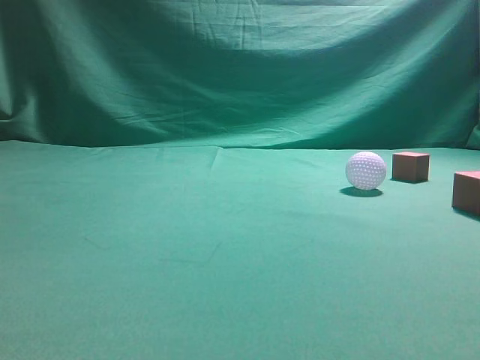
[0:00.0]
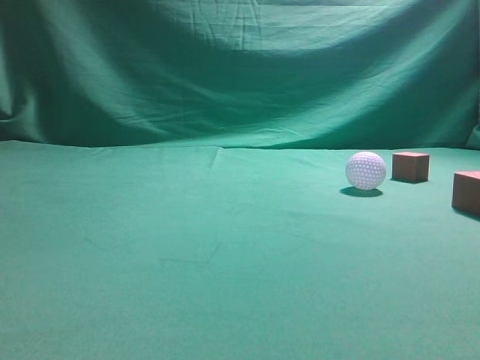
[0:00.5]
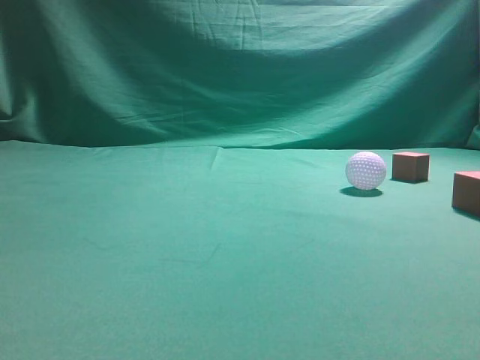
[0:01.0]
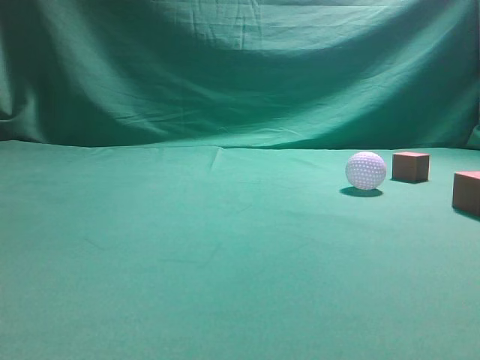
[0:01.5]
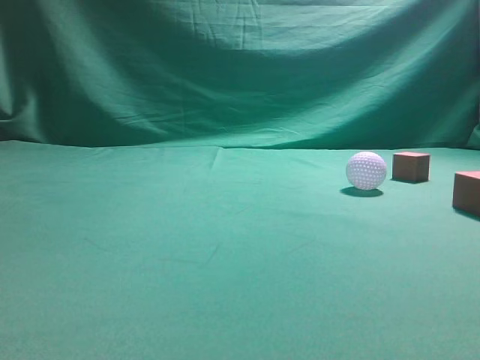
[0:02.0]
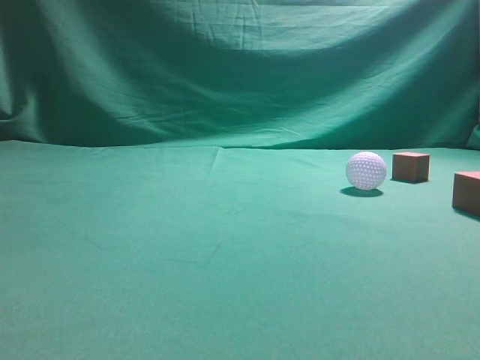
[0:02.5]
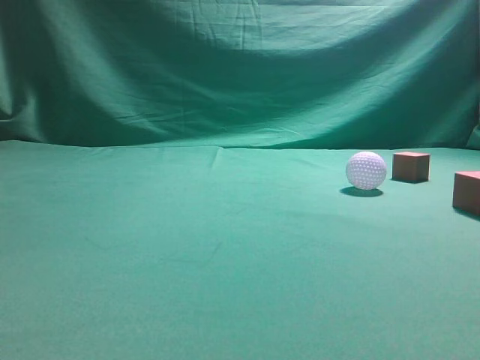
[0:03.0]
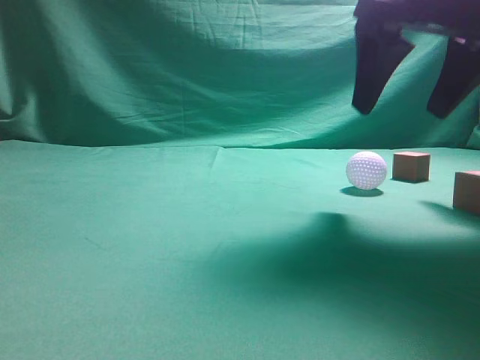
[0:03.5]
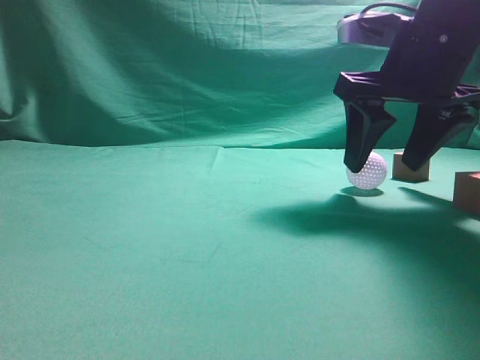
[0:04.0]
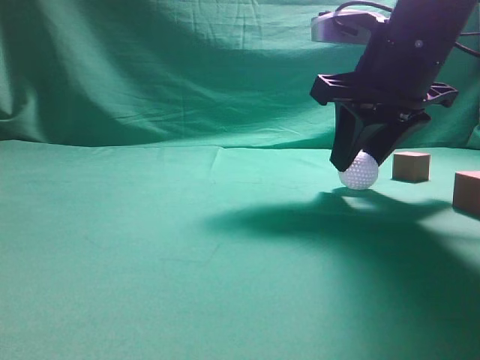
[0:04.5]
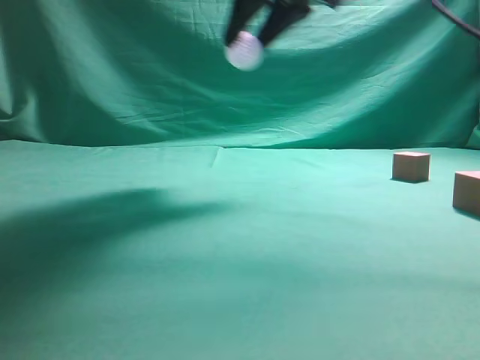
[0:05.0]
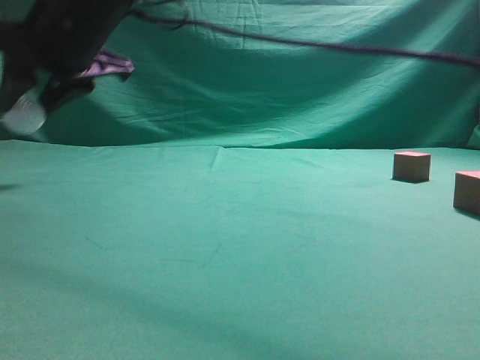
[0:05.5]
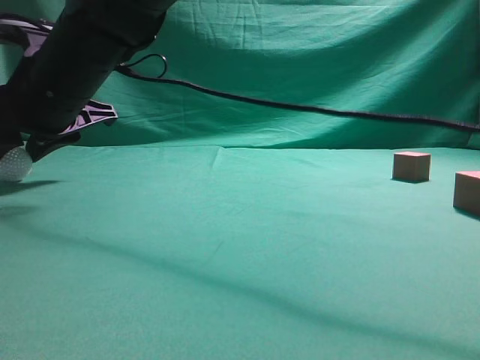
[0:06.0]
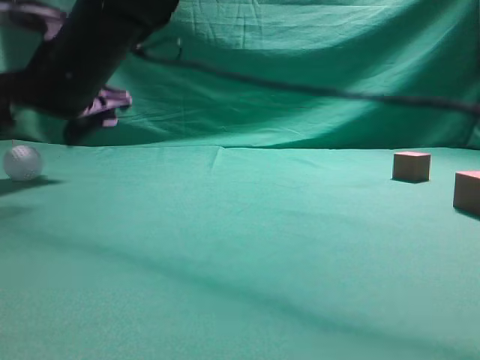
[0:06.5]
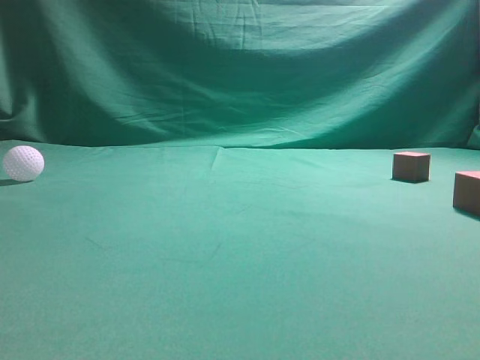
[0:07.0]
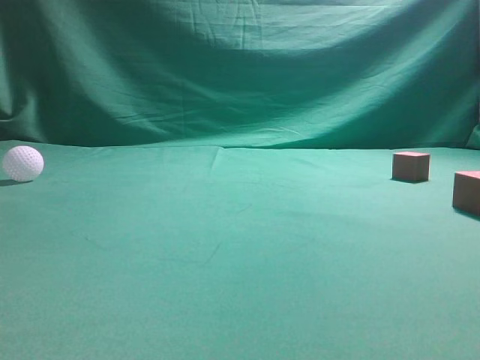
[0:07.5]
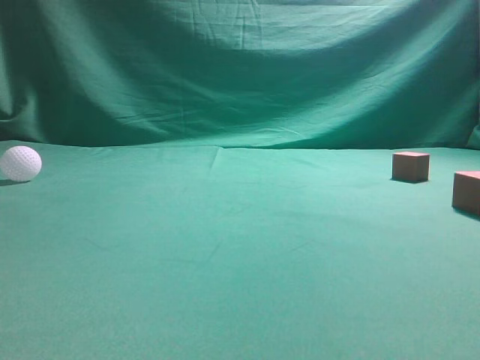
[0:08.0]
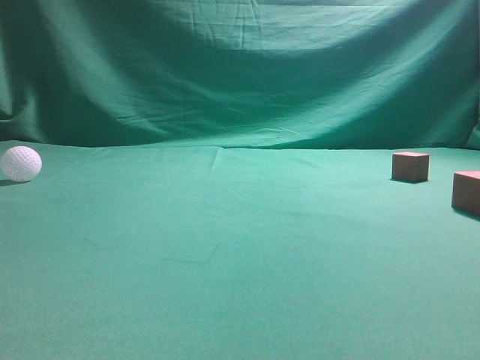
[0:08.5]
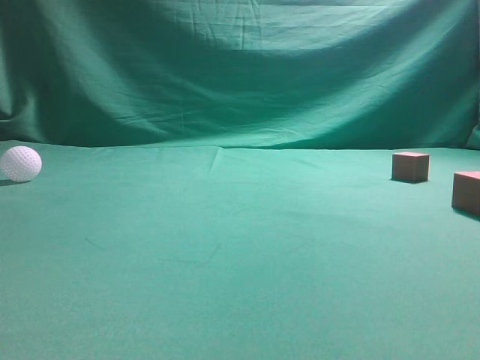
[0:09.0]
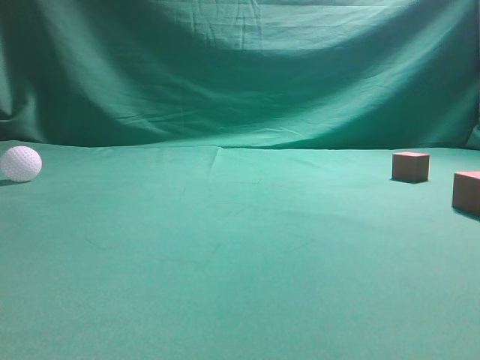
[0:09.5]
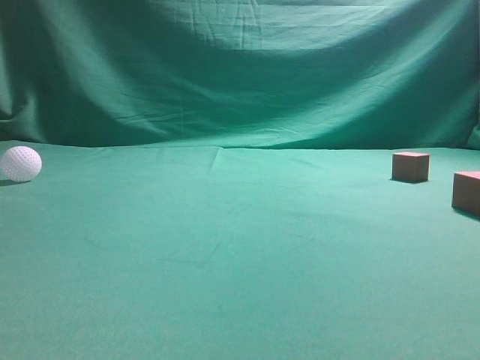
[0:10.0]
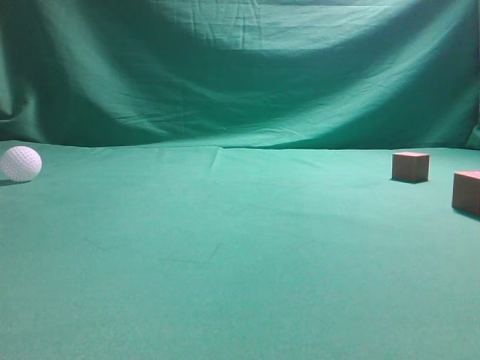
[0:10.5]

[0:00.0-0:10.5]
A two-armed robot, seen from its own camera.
Step, 0:00.0 to 0:04.5: Grasp the spherical object on the right side.
0:02.0 to 0:04.0: The right gripper moves forward and to the left, approximately 35 cm, and opens up.
0:04.0 to 0:06.5: The right gripper moves to the left, some 30 cm, and closes, then reopens.
0:06.5 to 0:08.5: The right gripper moves to the right, backward and upward, approximately 50 cm, and closes.
